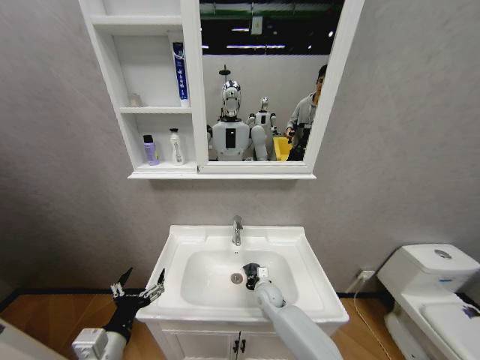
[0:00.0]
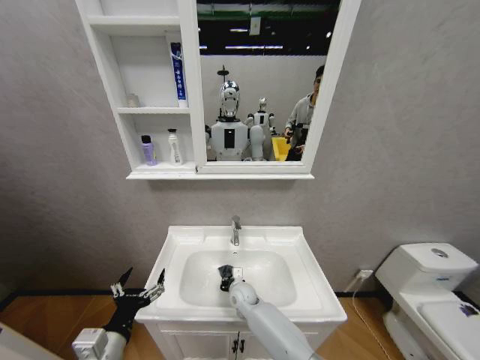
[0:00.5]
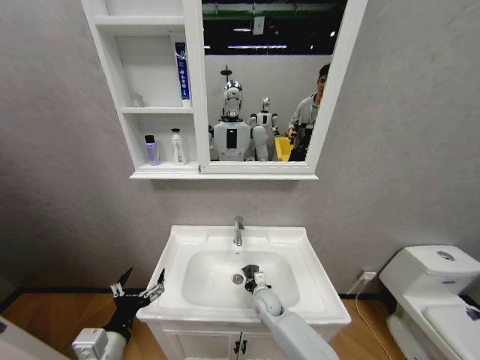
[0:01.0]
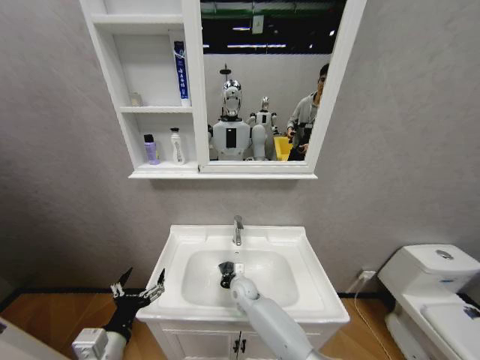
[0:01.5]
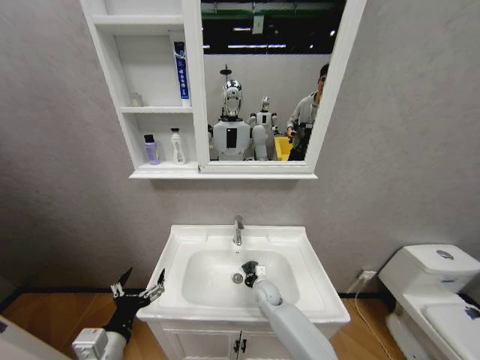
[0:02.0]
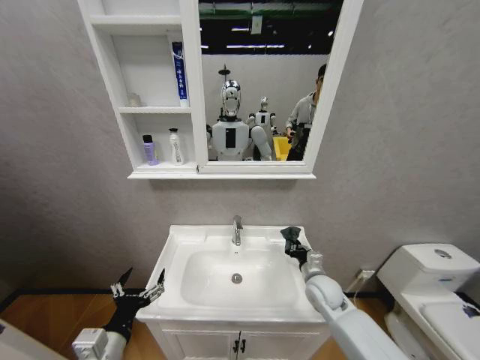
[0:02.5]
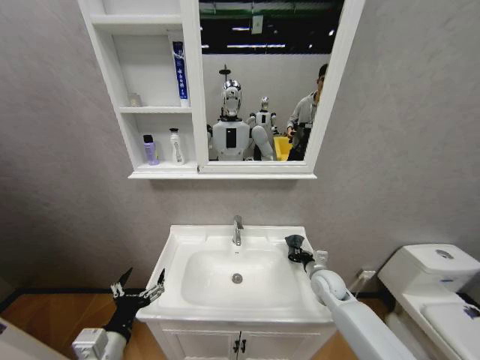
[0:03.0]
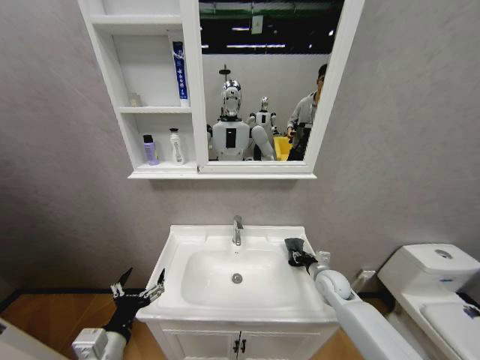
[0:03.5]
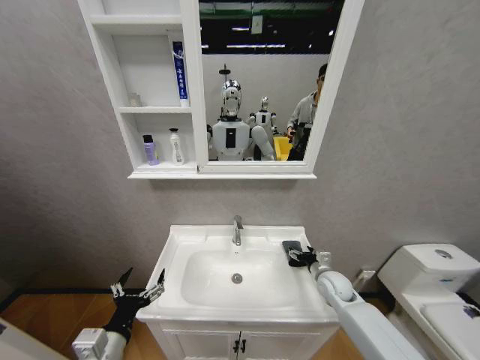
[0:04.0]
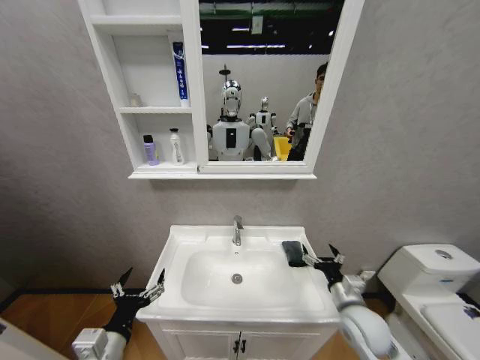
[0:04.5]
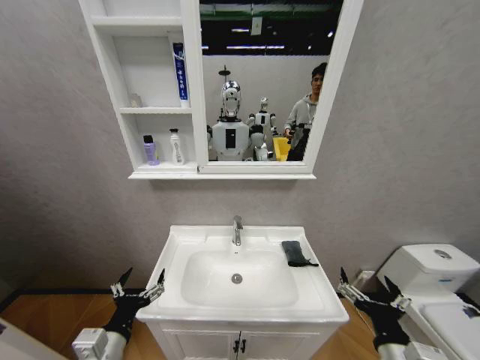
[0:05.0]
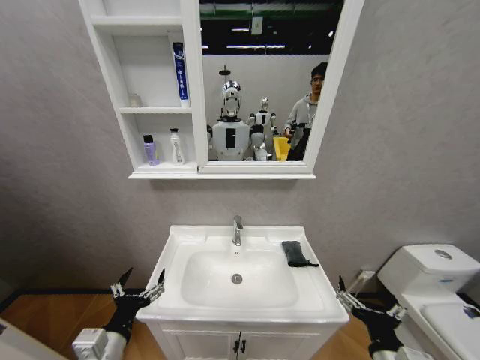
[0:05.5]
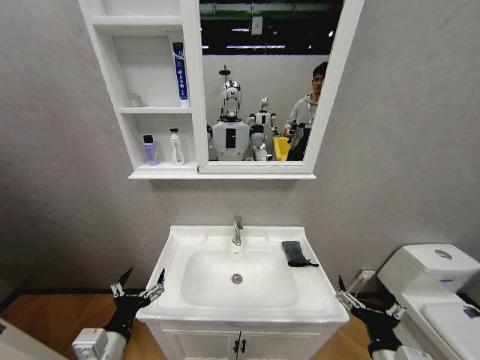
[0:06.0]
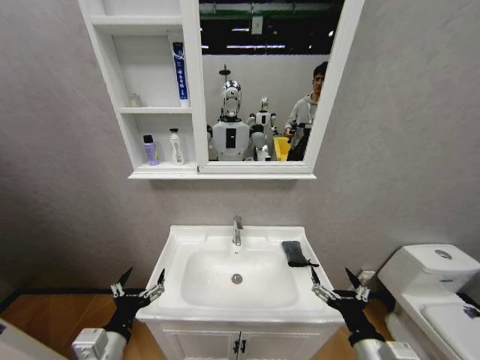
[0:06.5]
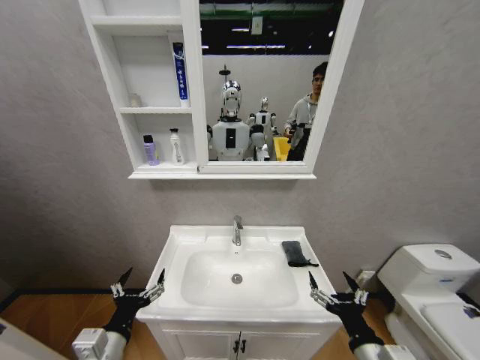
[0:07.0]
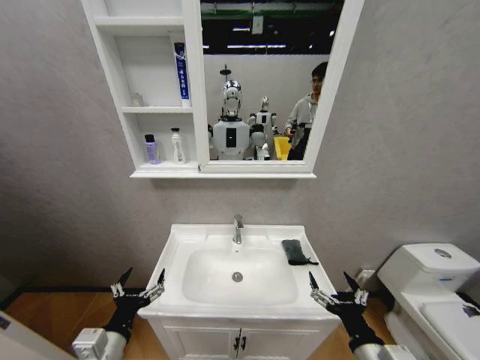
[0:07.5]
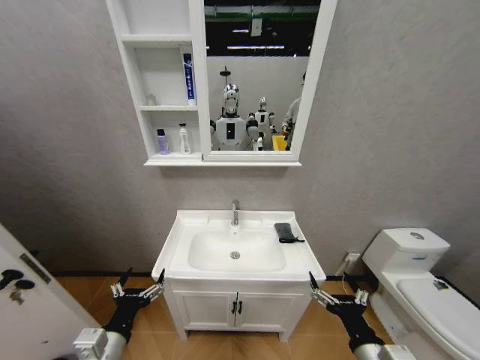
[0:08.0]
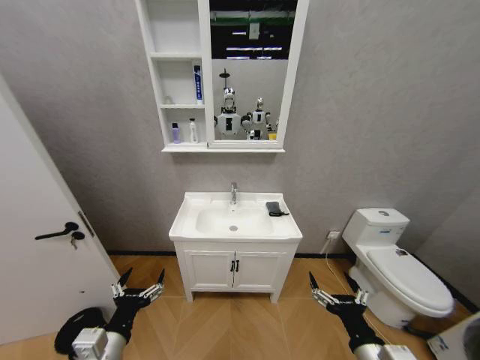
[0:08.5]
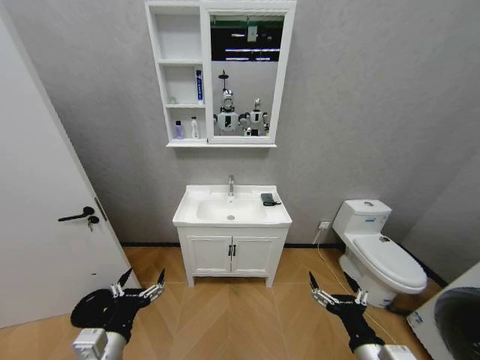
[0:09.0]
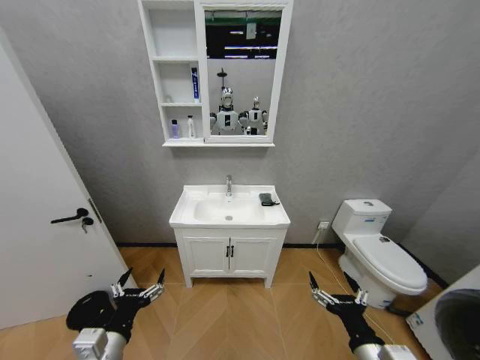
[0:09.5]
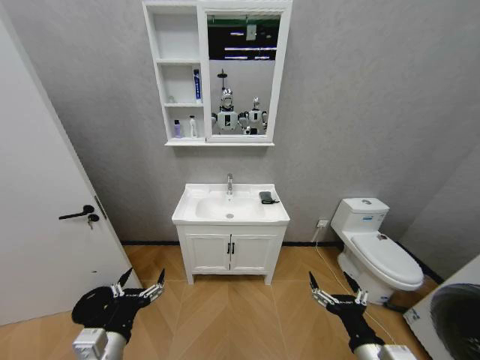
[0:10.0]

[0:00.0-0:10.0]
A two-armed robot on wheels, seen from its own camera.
Task of the whole recording: Move facial cleanser and shampoo from washbasin to cabinet, then wipe washbasin with towel.
0:00.0 to 0:02.0: The right gripper swings left and right, roughly 10 cm each way, with 3 reversals.
0:02.0 to 0:04.0: The right gripper moves to the right and upward, some 25 cm, and opens up.
0:04.0 to 0:06.0: The right gripper goes about 30 cm backward.
